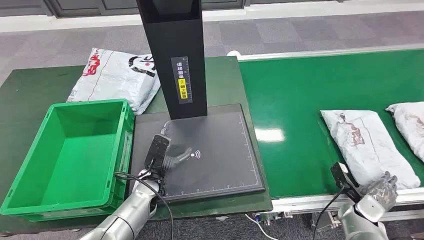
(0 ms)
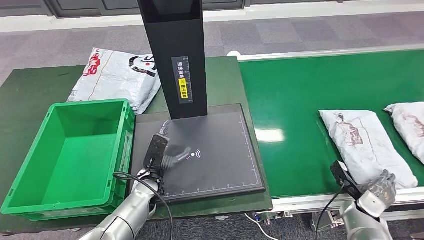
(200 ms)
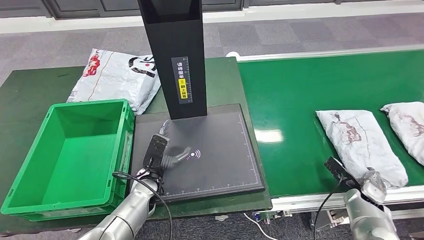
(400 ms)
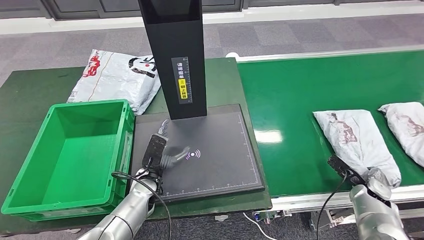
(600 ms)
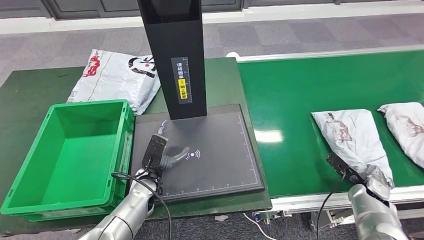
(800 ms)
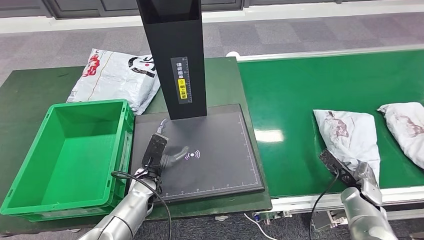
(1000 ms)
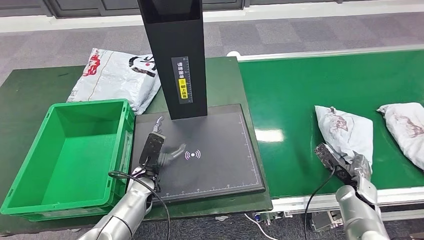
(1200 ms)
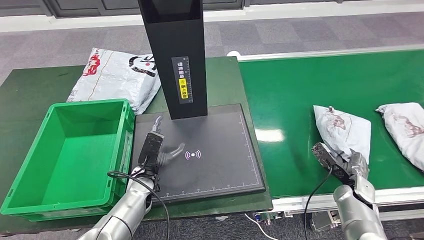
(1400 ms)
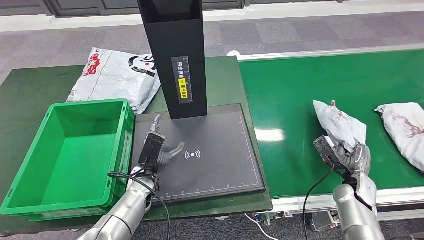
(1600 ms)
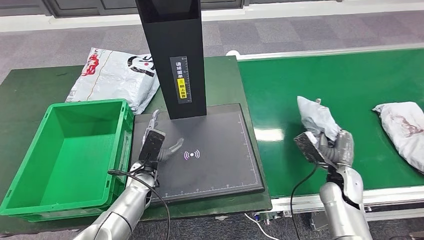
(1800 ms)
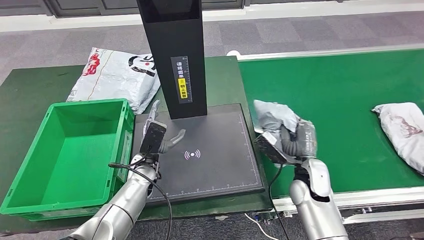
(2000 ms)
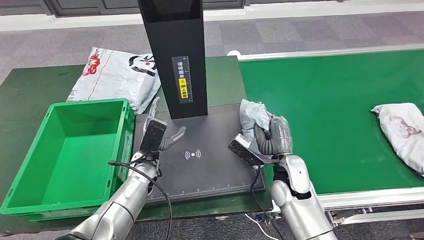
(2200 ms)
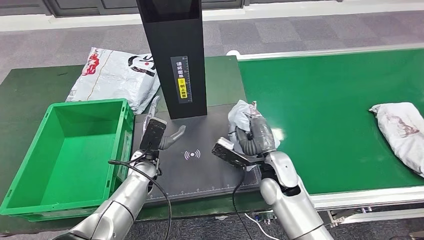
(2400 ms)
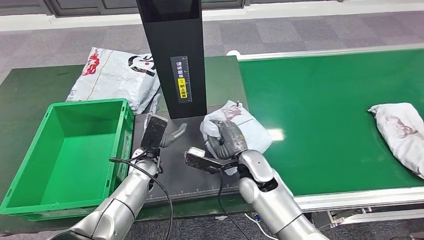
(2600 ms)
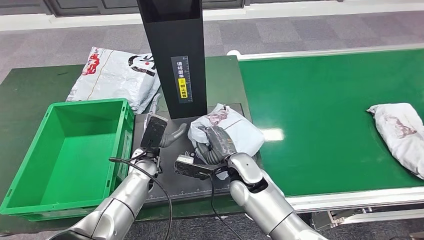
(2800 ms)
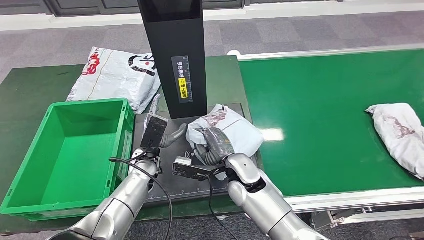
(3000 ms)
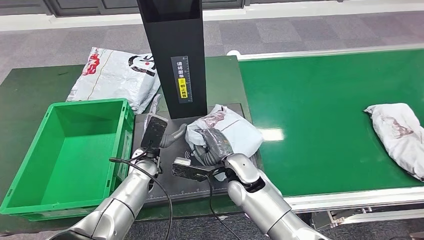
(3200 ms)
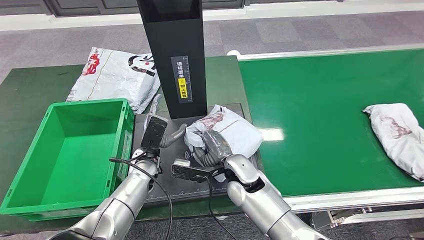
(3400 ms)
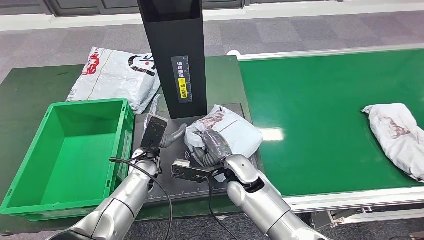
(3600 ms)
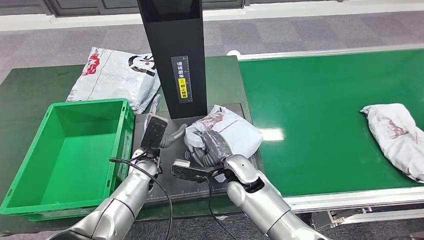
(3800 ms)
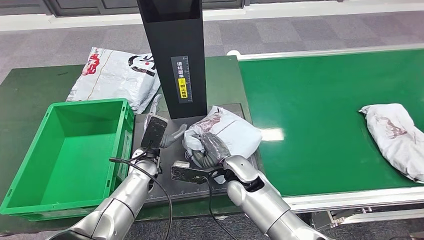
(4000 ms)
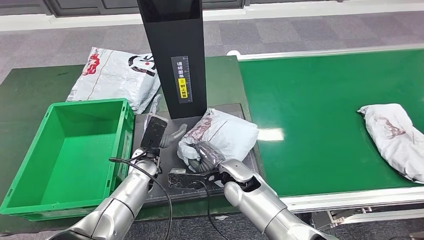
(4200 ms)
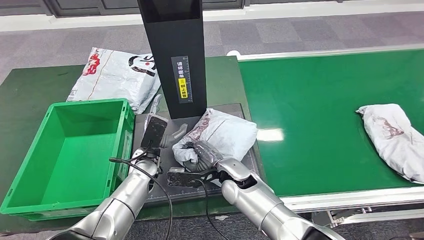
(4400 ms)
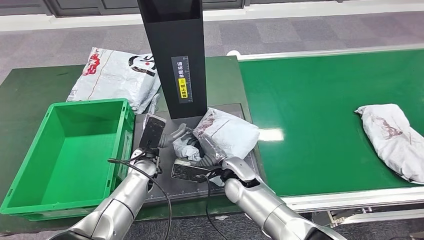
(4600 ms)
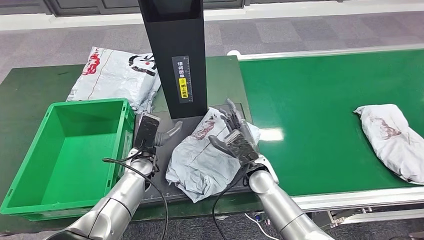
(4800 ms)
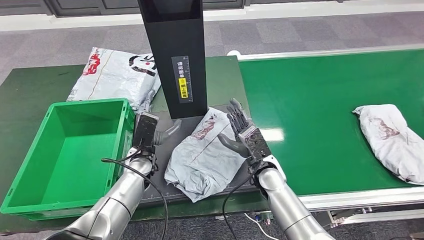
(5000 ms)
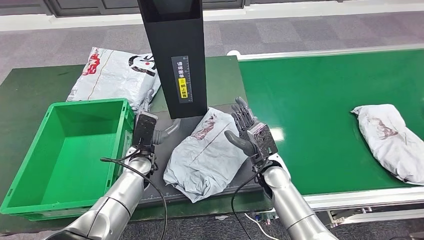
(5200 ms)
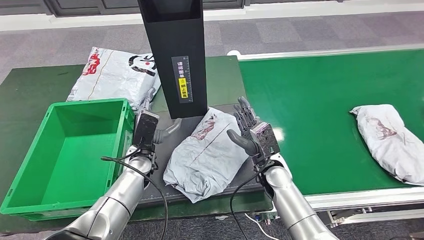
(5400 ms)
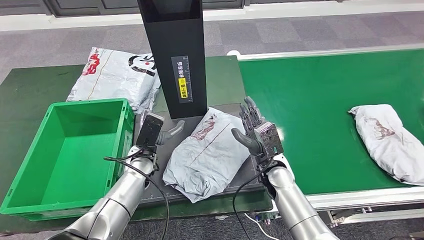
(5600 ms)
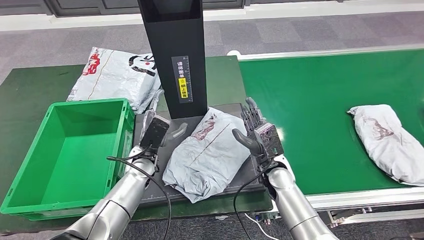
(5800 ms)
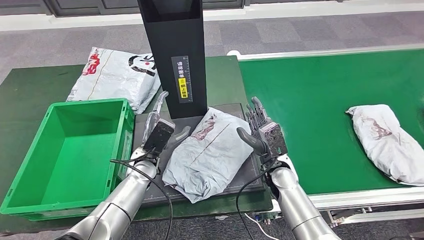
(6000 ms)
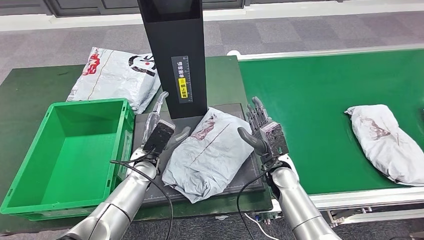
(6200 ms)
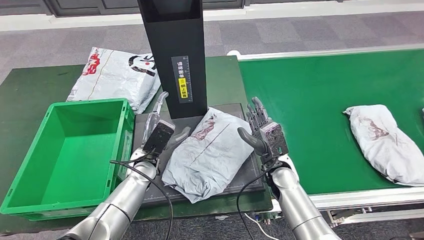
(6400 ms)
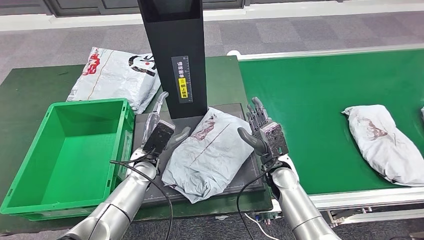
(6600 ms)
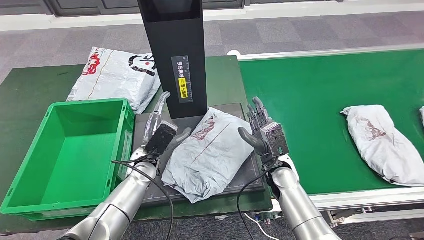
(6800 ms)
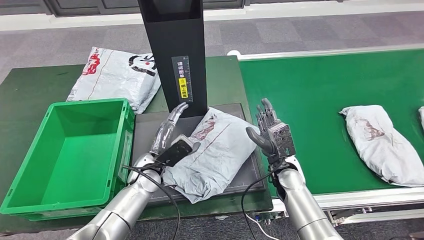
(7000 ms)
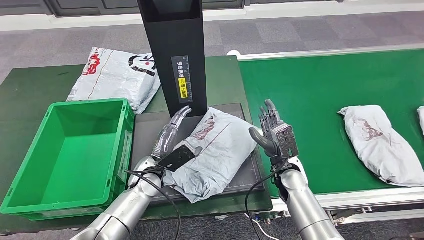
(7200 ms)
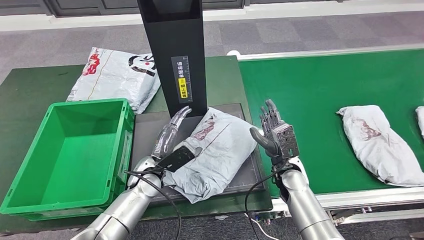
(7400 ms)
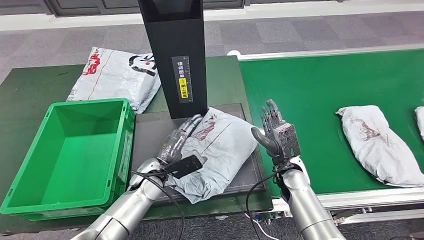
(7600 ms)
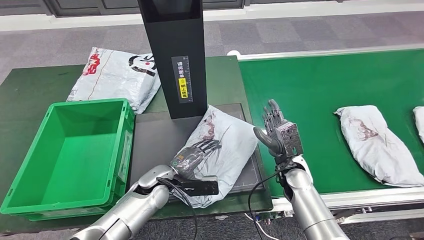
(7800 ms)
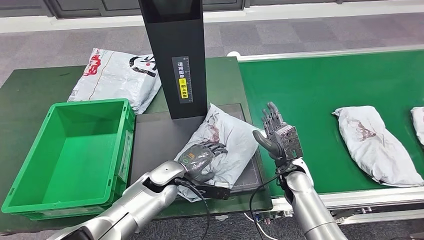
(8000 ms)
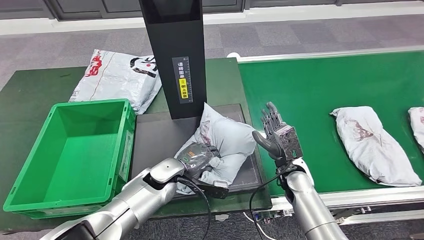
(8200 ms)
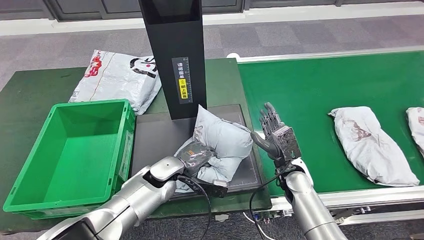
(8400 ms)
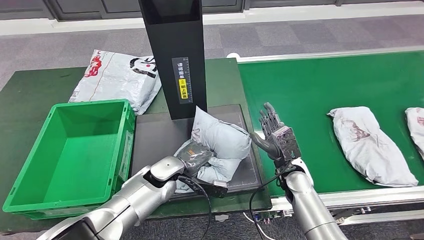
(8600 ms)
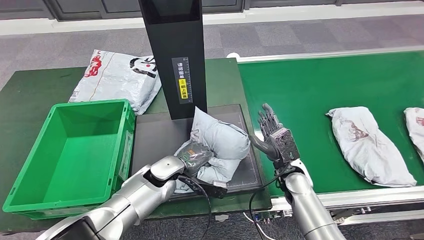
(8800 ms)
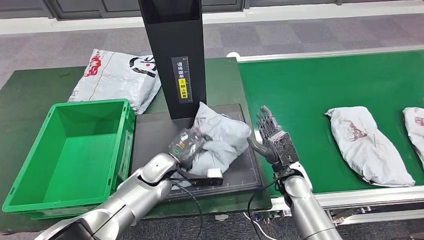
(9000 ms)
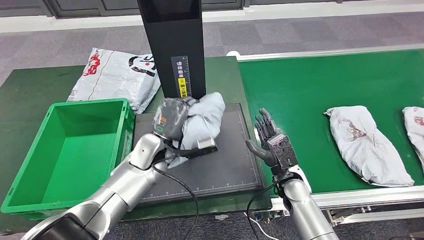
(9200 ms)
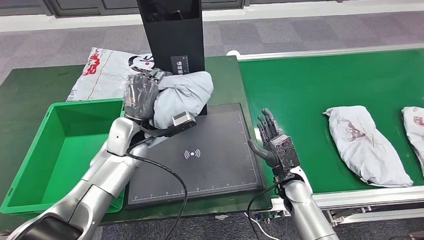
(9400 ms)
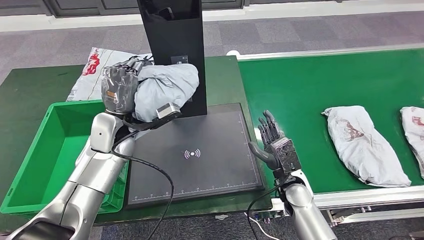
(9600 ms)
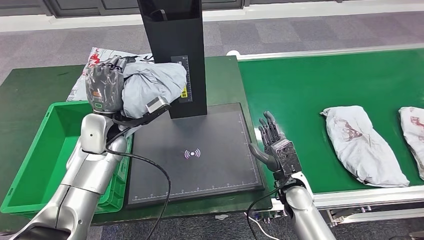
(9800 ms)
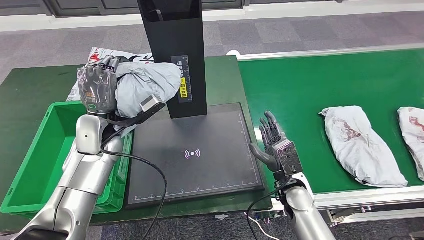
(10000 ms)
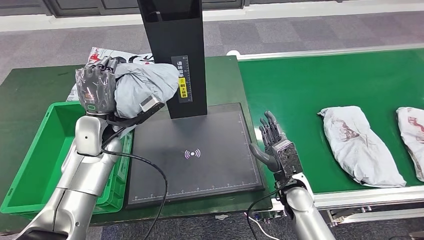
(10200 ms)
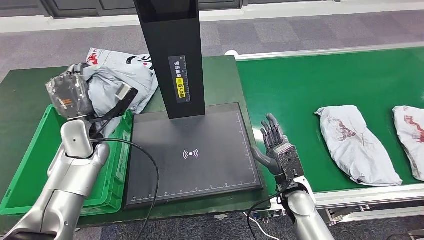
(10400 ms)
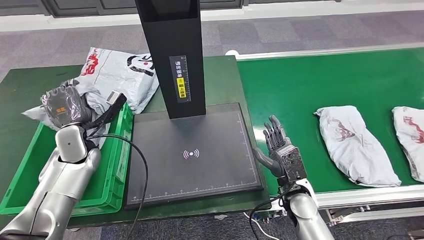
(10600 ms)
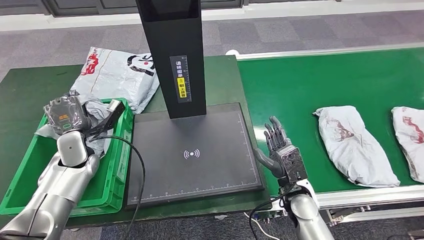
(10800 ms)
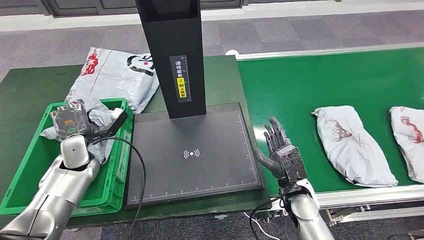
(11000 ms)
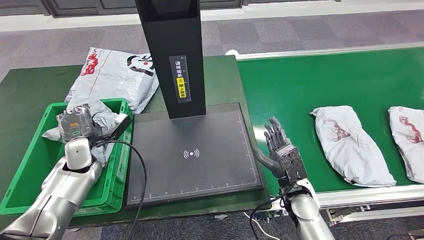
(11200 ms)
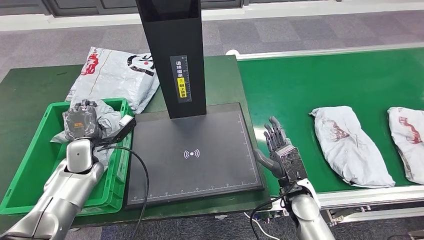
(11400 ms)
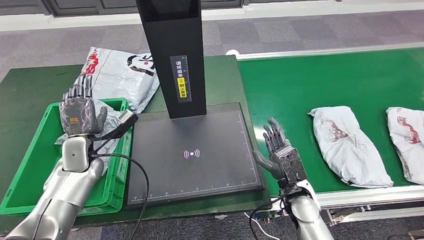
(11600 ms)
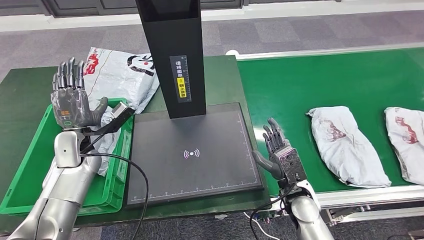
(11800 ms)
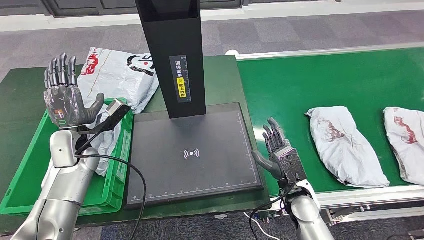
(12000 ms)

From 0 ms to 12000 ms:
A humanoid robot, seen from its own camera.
Step, from 0 ms to 1800 ms: Take the parcel off the conveyor belt.
Step, from 2000 ms to 4000 ms: Place the parcel onto the inbound machine.
Step, from 7600 ms to 9400 ms: Pick up the parcel from the inbound machine.
From 3000 ms to 4400 ms: The hands stay close to where they were, moving slightly.
From 4400 ms to 6000 ms: The right hand heads to the right, covering about 10 cm.

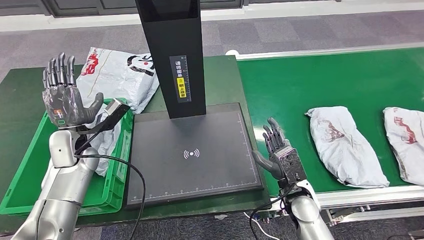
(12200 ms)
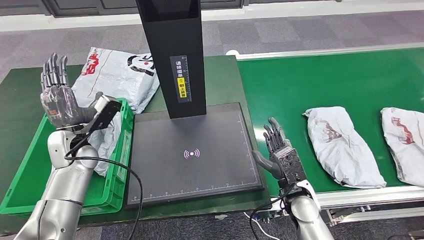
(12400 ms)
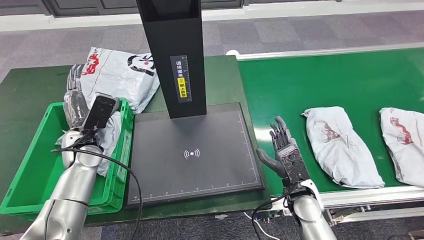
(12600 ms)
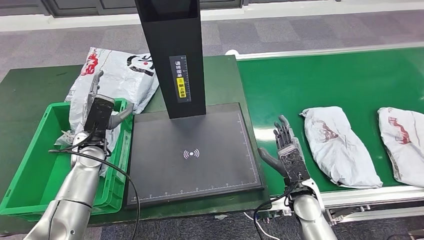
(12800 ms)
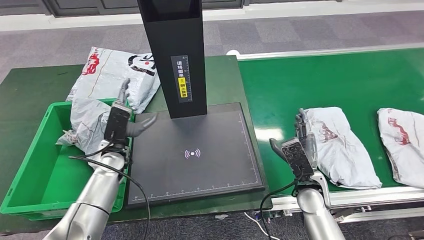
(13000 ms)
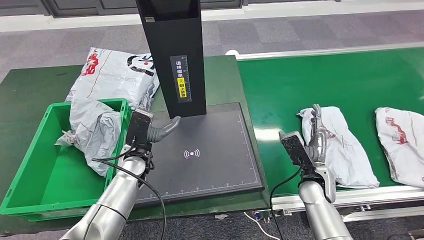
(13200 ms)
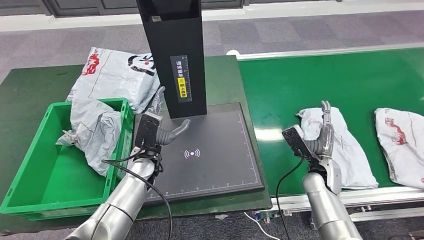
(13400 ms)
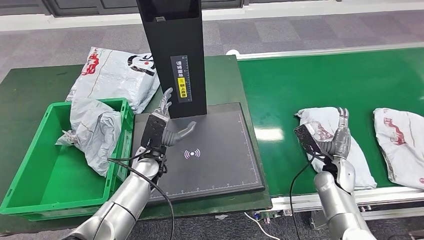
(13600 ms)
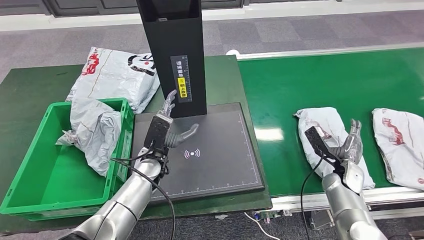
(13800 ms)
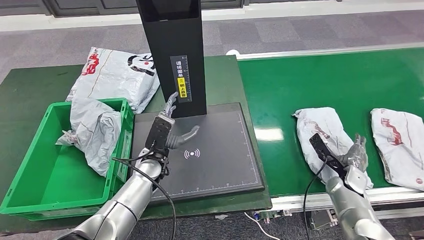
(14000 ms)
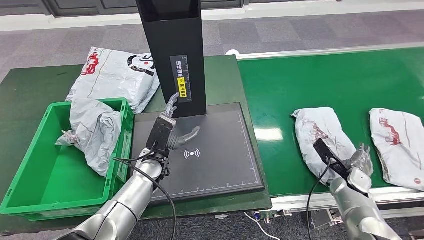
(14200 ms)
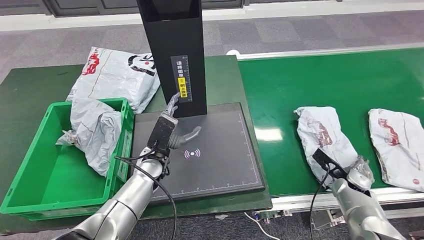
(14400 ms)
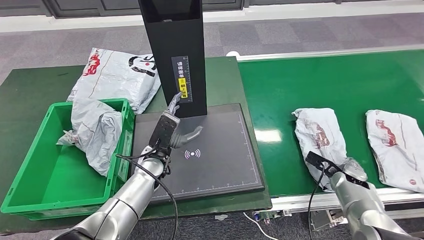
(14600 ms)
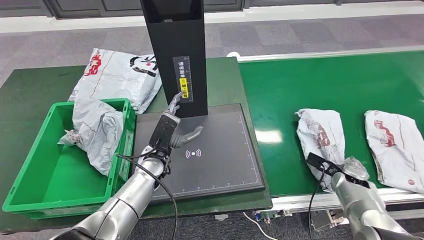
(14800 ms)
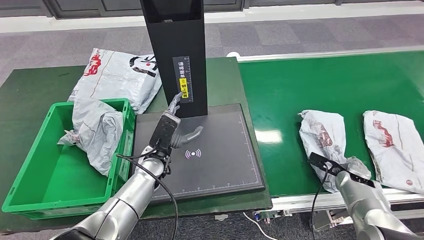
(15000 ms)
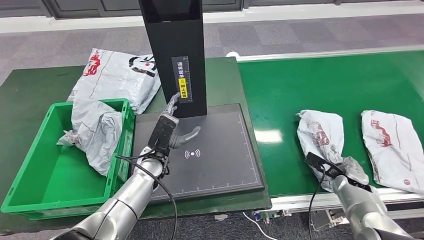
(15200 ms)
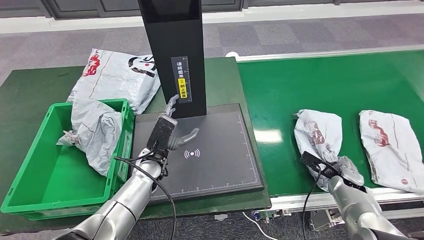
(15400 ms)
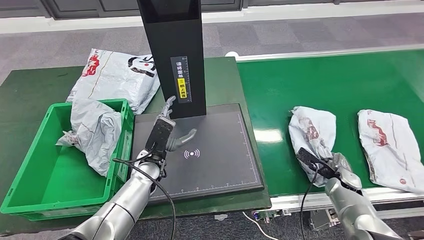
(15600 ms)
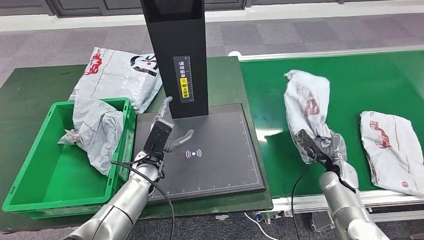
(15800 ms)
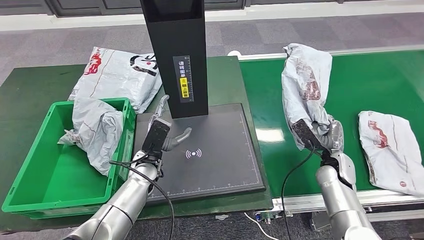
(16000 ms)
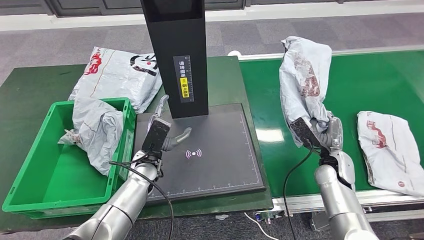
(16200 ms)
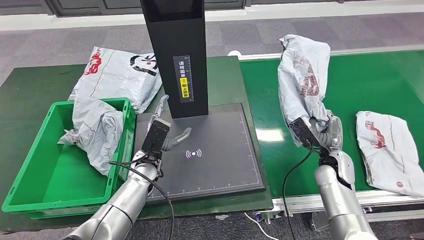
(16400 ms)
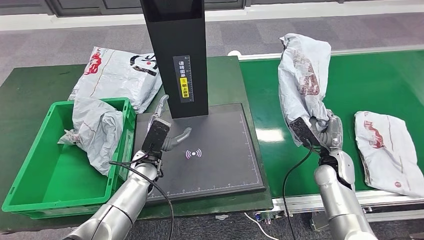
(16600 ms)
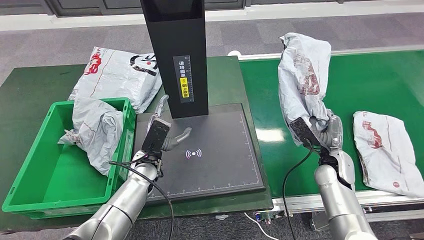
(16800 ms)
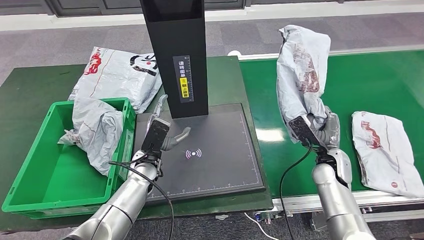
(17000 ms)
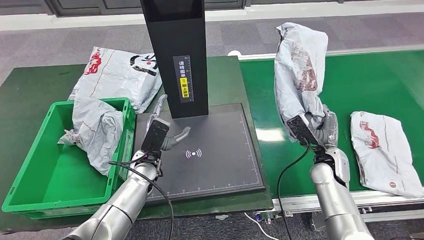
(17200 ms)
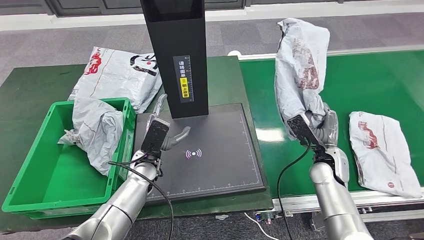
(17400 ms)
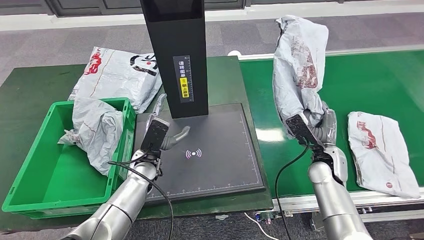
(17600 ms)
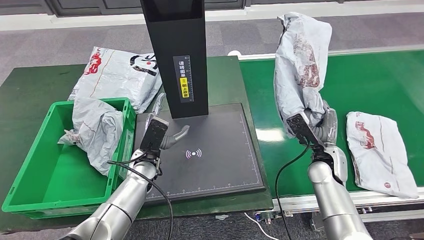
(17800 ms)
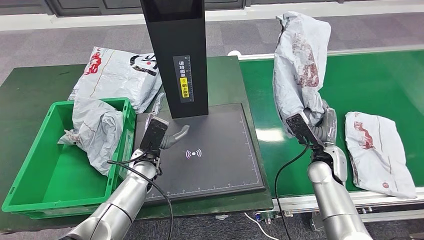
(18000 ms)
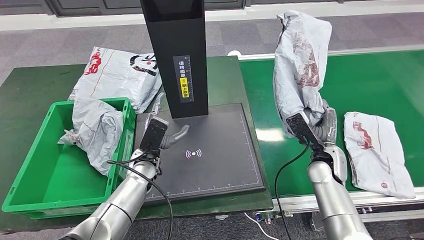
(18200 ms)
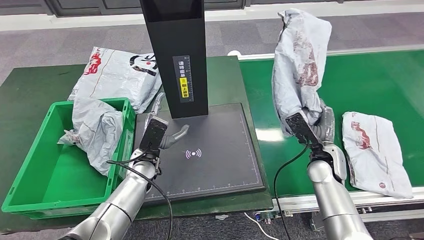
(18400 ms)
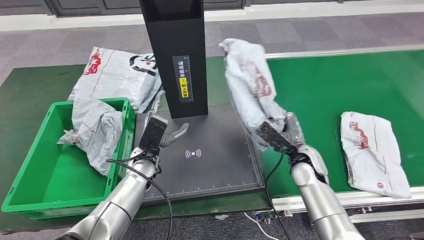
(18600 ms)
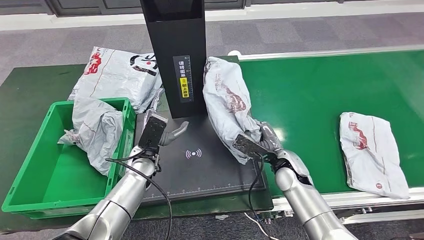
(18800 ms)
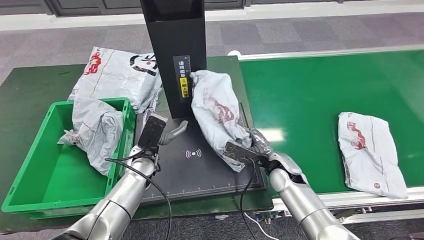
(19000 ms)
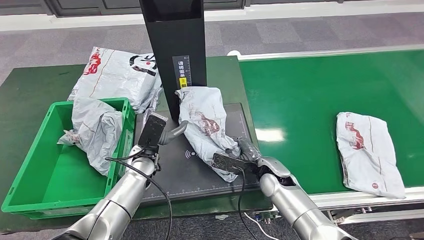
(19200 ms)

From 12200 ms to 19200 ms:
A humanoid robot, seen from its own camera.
Step, from 12400 ms to 16000 ms: Pick up the parcel from the conveyor belt.
From 16400 ms to 17800 ms: The hands stay close to where they were, moving slightly.
